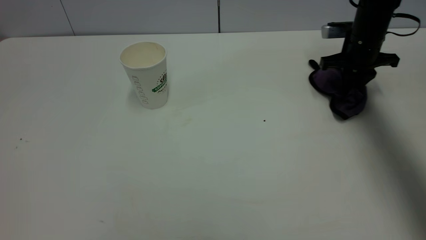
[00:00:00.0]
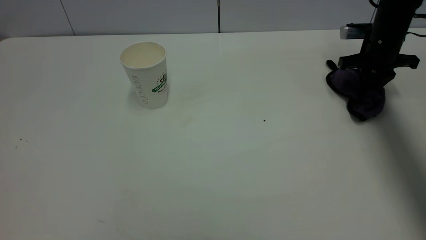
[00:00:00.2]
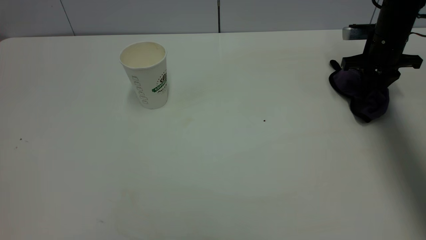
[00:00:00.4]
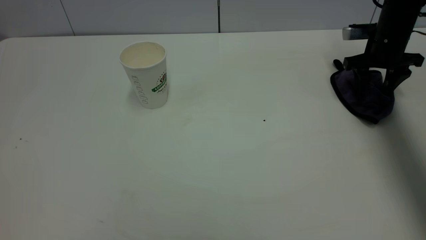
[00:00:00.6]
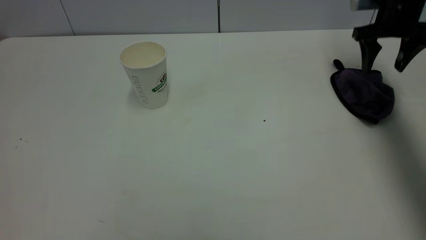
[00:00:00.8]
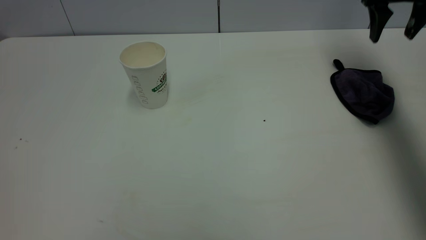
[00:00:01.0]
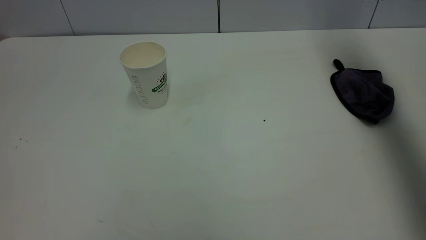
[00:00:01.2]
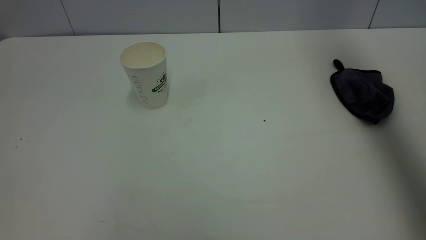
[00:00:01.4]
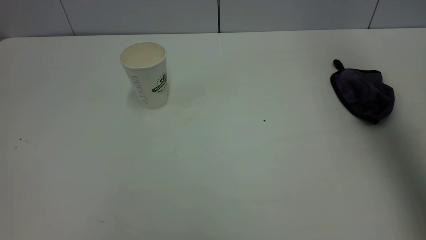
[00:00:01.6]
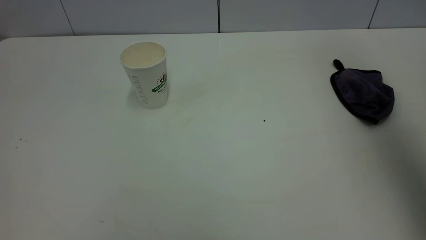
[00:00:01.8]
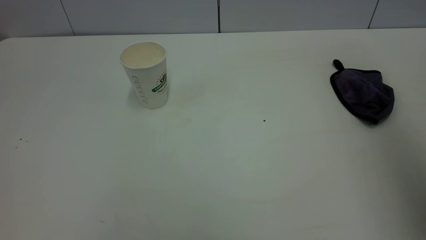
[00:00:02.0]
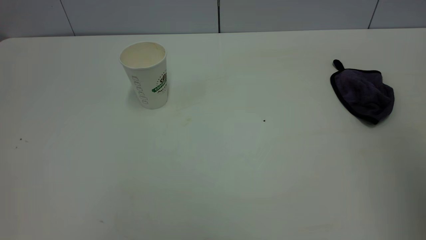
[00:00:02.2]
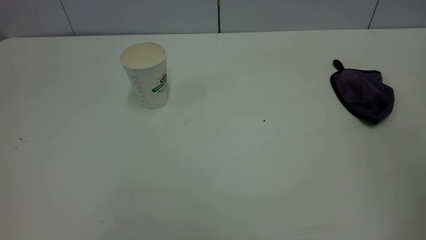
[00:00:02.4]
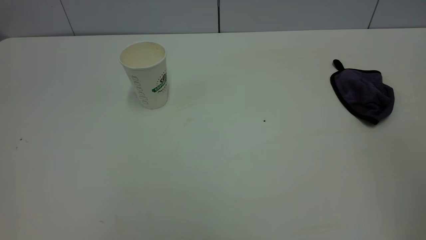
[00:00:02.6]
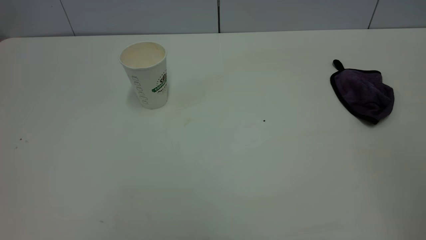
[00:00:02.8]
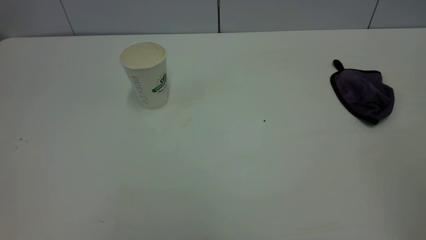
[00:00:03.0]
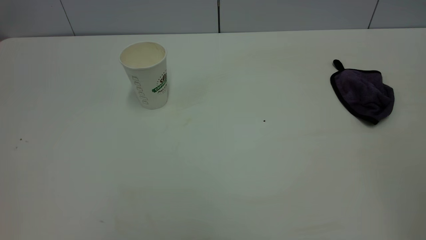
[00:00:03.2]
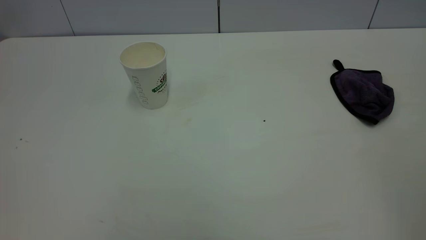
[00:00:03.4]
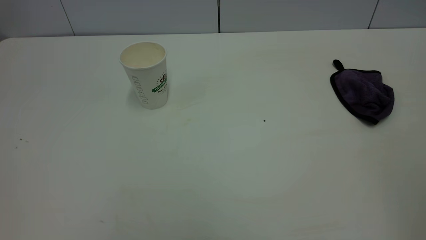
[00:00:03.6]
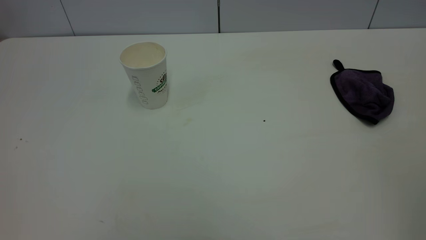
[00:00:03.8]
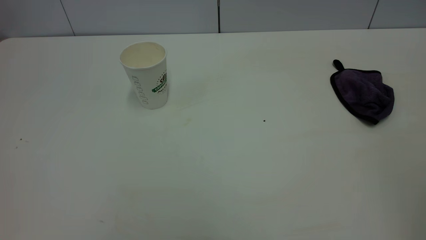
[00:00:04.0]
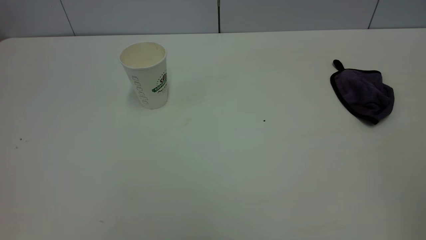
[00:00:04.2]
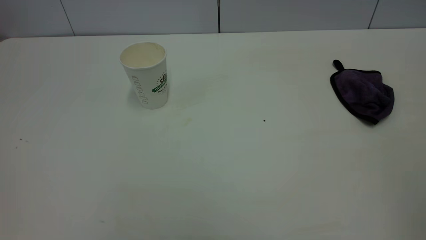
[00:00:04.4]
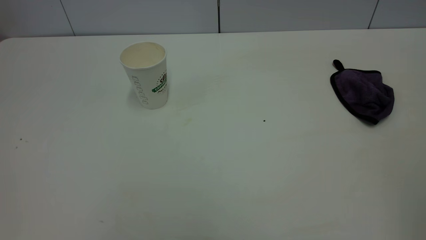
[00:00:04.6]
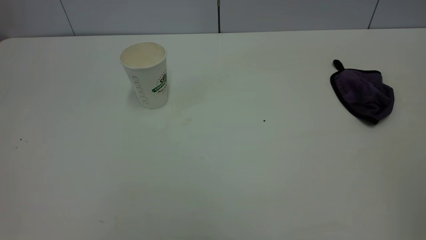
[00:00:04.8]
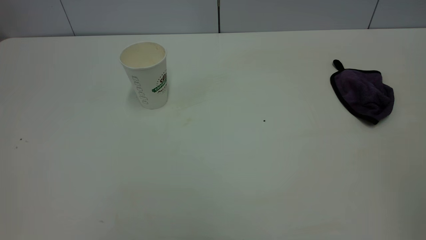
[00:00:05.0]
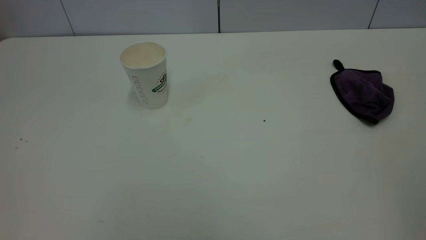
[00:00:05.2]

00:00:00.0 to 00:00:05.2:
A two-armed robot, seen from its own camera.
Task of the whole recording: the left gripper pick up the fallen cup and place it upright, the right gripper grasp the purple rag and wipe the tea stain on the table, the right gripper put the purple rag back in its original position.
00:00:00.0 to 00:00:01.8: The right gripper travels upward and backward by some 40 cm, and opens its fingers.
00:00:01.8 to 00:00:03.4: The right gripper travels backward by approximately 25 cm.
